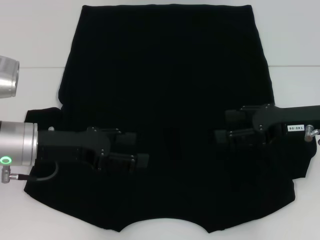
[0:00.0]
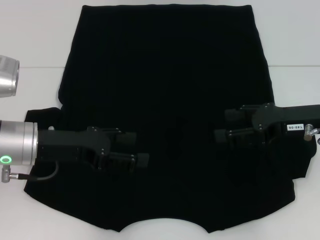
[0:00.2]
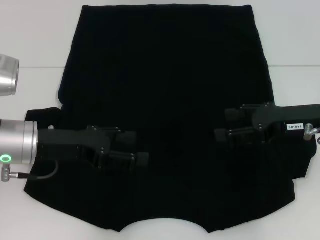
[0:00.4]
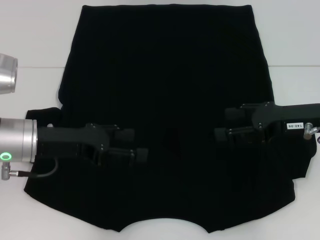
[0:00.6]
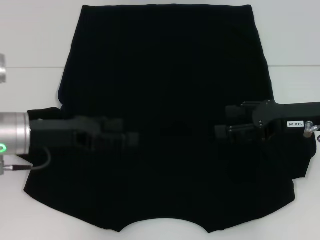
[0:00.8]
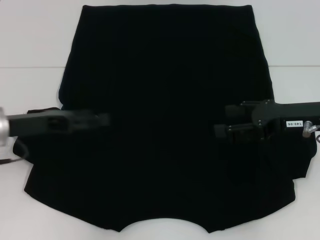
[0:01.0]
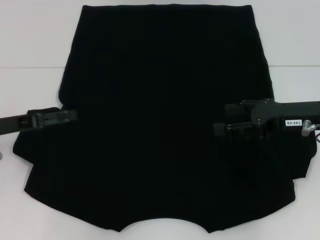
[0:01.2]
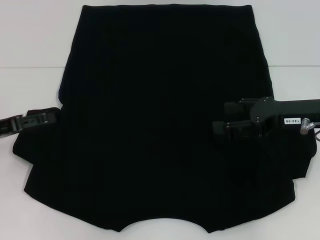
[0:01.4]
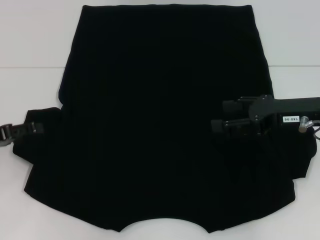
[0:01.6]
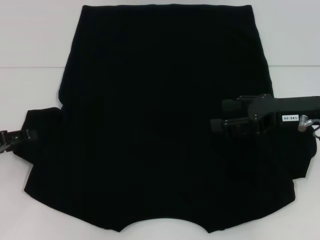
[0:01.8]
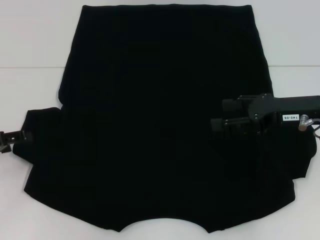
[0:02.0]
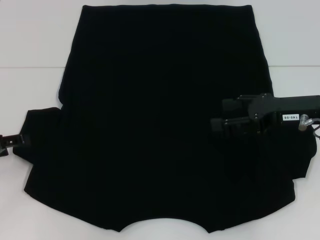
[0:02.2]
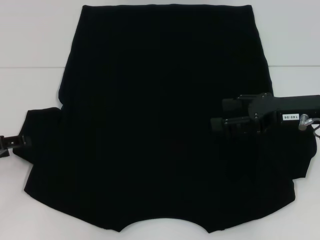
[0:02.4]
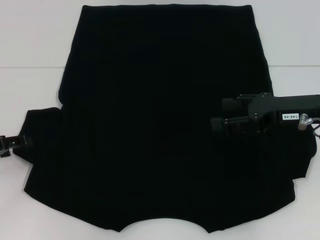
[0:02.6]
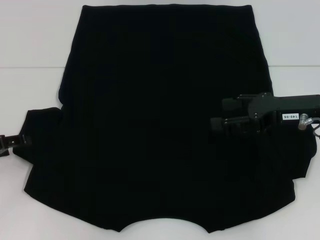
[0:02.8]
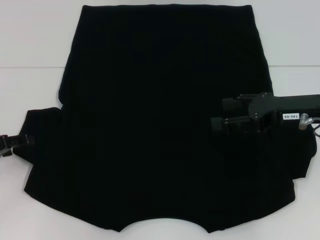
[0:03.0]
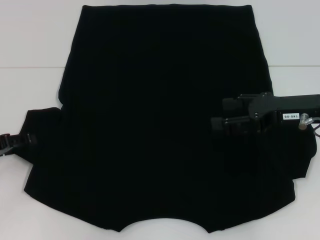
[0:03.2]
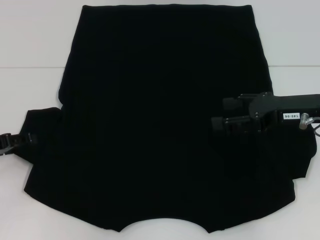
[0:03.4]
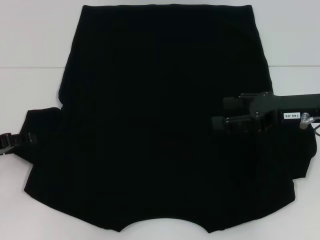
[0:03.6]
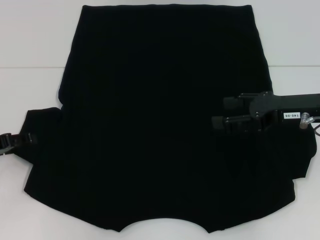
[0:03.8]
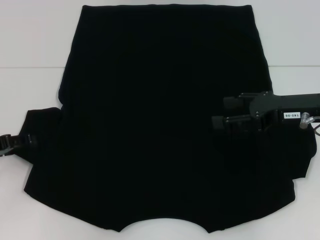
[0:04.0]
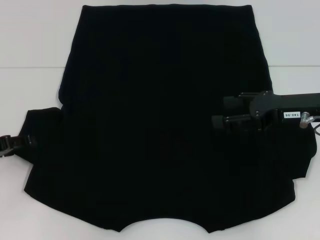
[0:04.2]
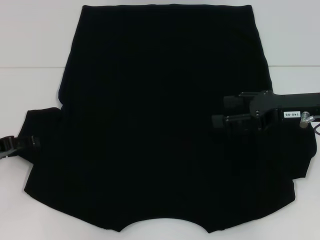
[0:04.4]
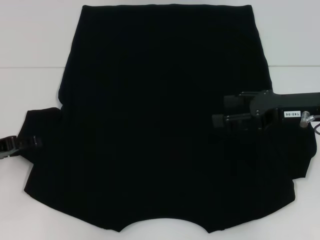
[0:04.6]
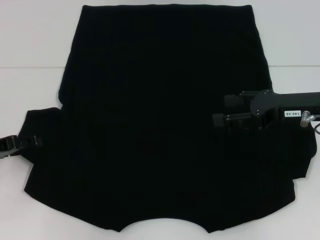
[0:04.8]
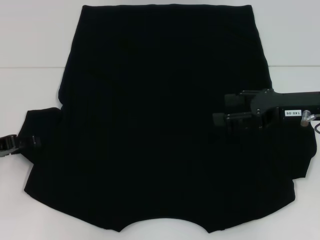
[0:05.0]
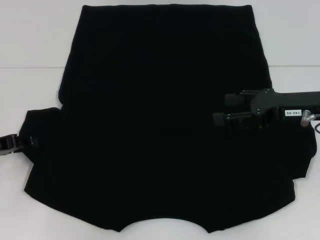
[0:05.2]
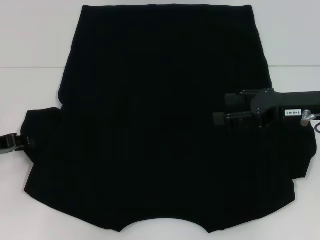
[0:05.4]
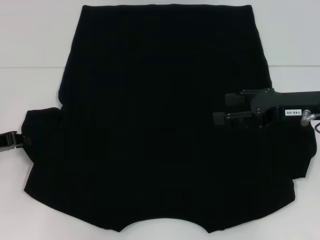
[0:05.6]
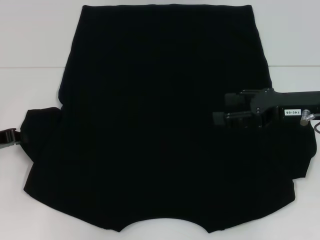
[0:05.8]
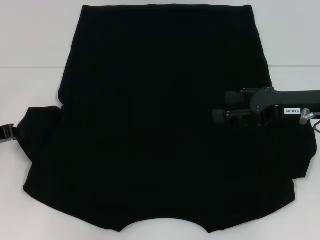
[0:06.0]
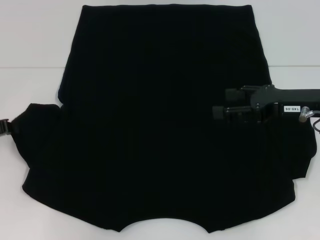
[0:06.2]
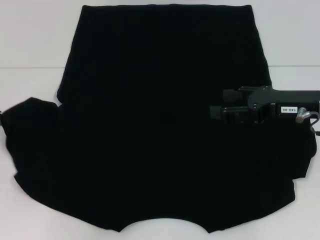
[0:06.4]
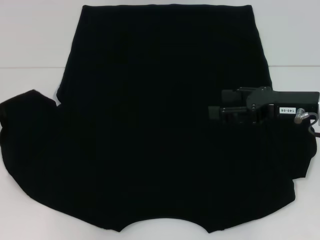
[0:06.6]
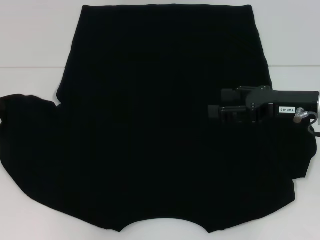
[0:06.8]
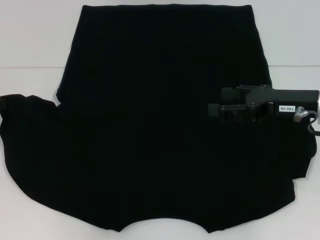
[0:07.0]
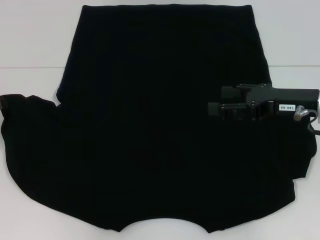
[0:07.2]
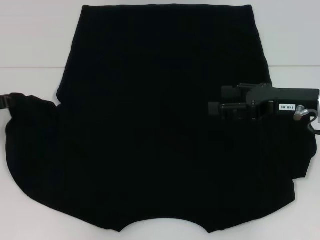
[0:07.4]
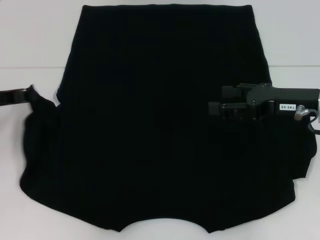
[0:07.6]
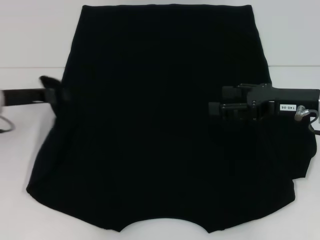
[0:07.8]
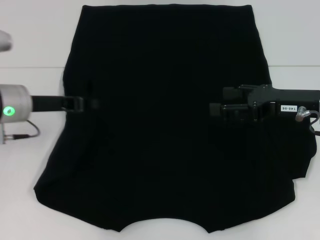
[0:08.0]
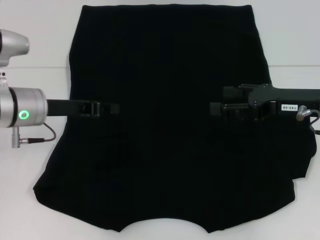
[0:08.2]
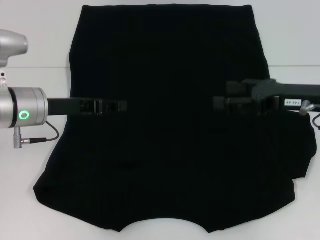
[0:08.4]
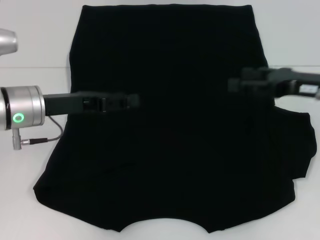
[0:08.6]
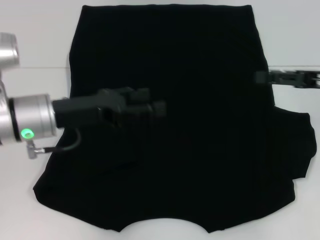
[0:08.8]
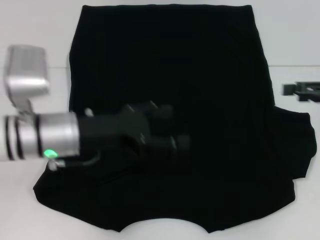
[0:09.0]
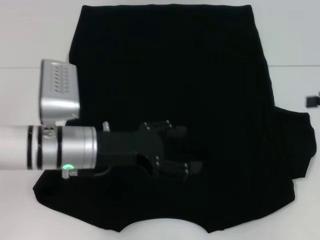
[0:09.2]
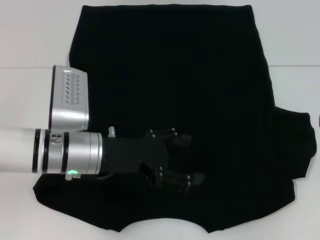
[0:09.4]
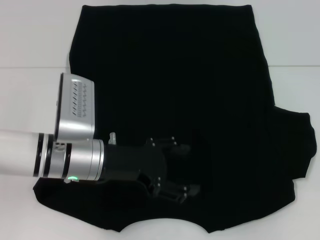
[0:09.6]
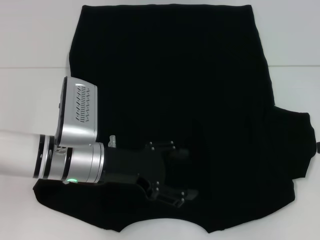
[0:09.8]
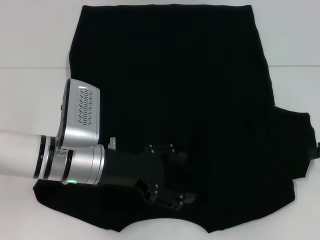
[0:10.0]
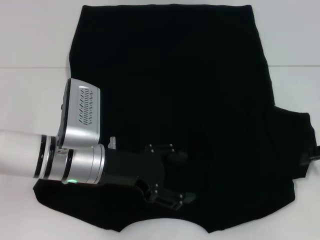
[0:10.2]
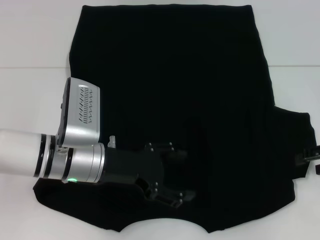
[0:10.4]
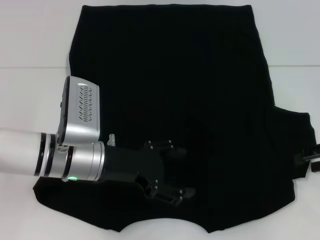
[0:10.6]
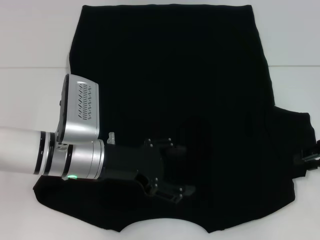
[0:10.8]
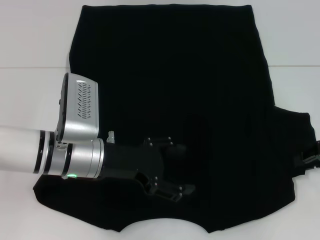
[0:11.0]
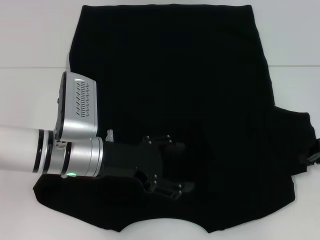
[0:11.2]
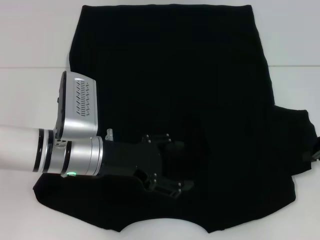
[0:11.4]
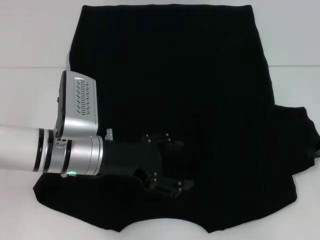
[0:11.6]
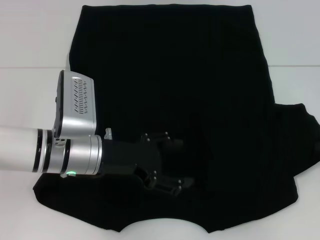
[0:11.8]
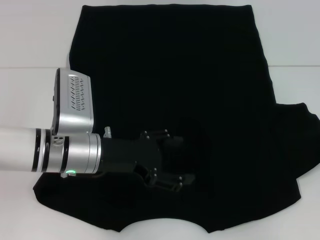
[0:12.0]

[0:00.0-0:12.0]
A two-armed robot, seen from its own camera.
Step, 0:00.0 to 0:08.4: Fold the bottom left sleeve with your left hand.
0:00.0 to 0:01.6: The left gripper is displaced to the left by approximately 10 cm.
0:01.6 to 0:03.0: The grippers stay close to where they were, moving slightly.
0:03.0 to 0:04.4: Both grippers stay about where they are.
0:04.4 to 0:06.0: The left gripper closes.
0:06.0 to 0:07.6: The left gripper moves about 5 cm.
0:07.6 to 0:09.0: The two grippers go roughly 15 cm to the right. The left gripper opens up.
0:09.0 to 0:10.4: The right gripper travels downward by roughly 5 cm.
0:10.4 to 0:12.0: The right gripper closes.

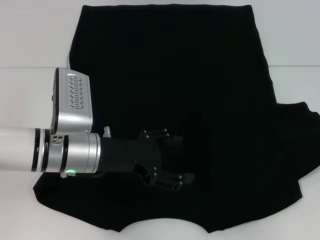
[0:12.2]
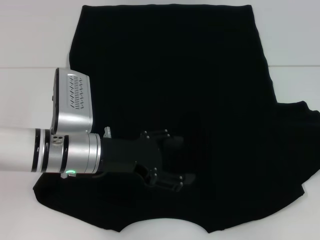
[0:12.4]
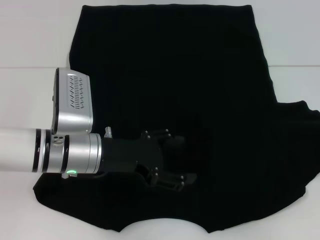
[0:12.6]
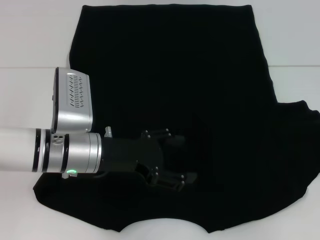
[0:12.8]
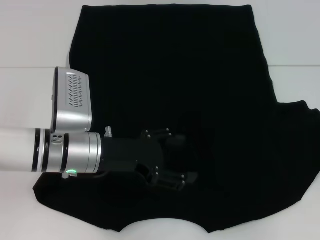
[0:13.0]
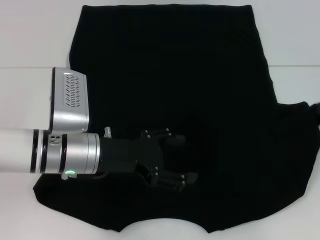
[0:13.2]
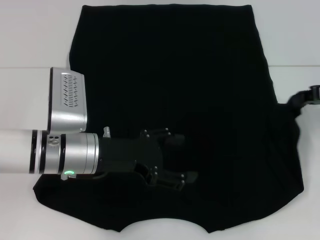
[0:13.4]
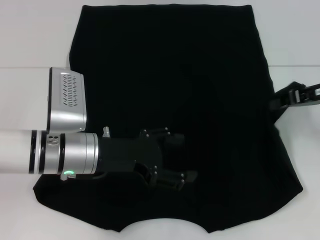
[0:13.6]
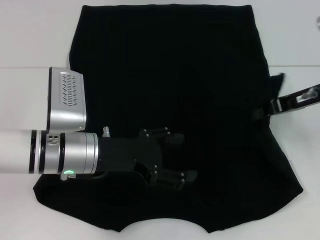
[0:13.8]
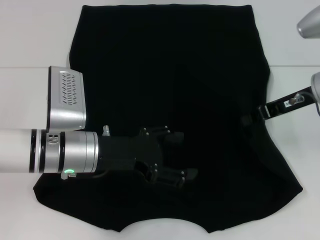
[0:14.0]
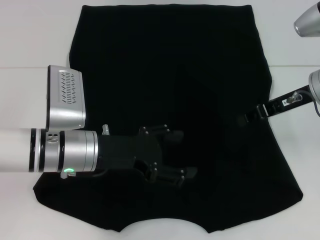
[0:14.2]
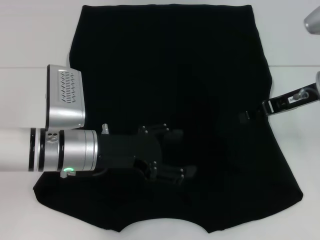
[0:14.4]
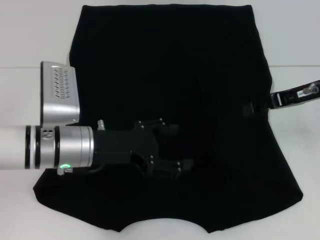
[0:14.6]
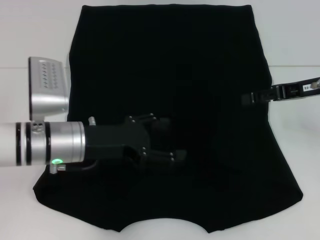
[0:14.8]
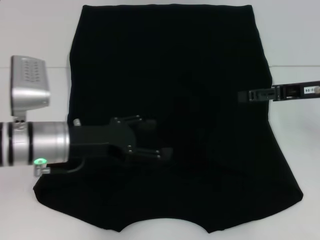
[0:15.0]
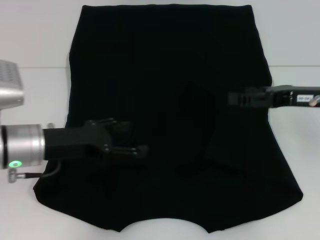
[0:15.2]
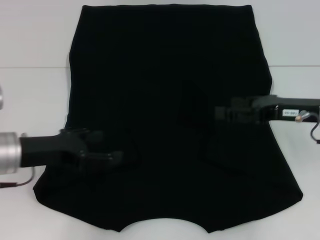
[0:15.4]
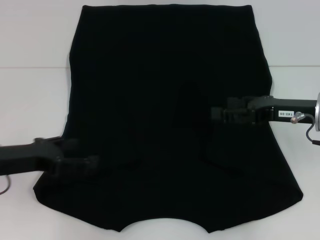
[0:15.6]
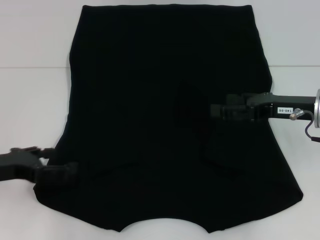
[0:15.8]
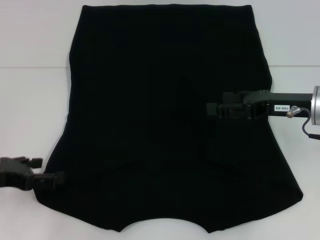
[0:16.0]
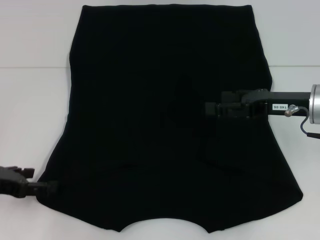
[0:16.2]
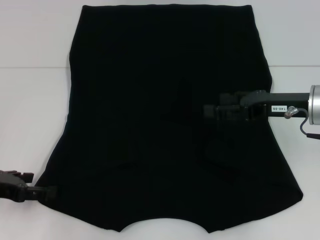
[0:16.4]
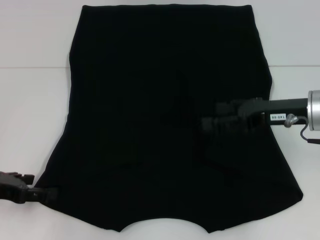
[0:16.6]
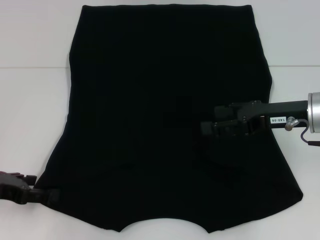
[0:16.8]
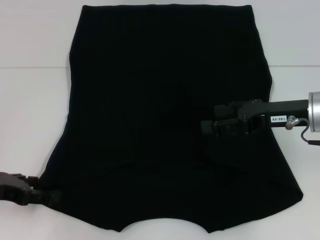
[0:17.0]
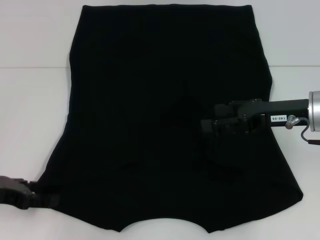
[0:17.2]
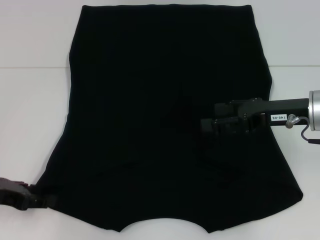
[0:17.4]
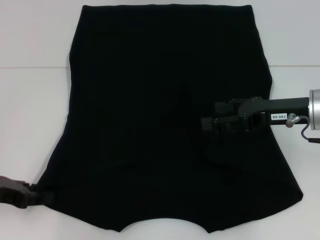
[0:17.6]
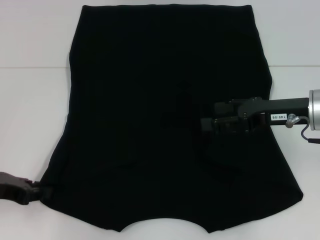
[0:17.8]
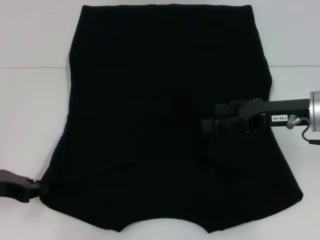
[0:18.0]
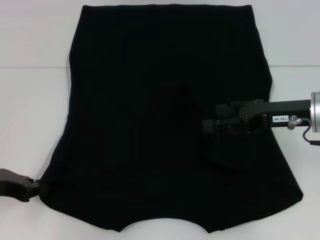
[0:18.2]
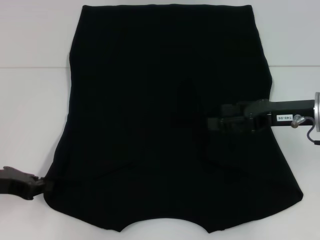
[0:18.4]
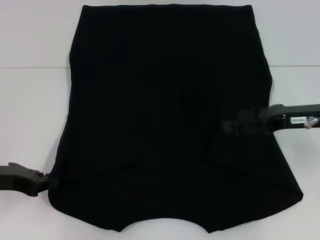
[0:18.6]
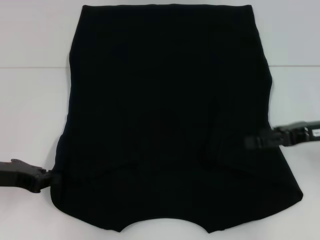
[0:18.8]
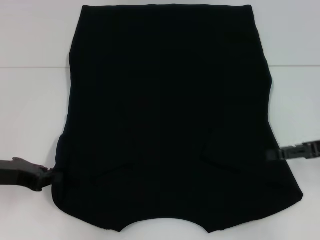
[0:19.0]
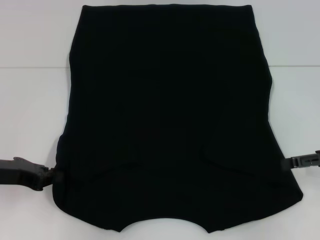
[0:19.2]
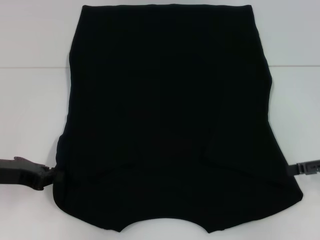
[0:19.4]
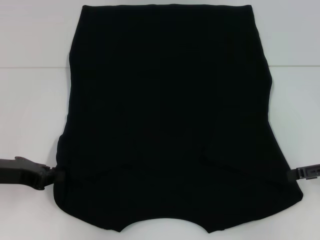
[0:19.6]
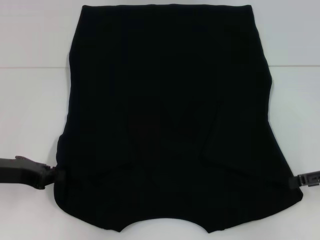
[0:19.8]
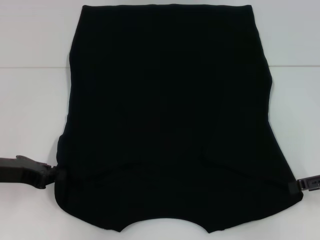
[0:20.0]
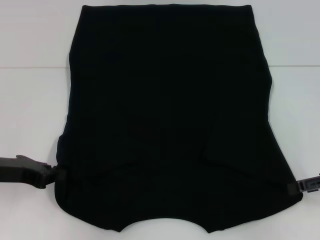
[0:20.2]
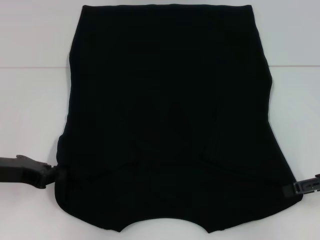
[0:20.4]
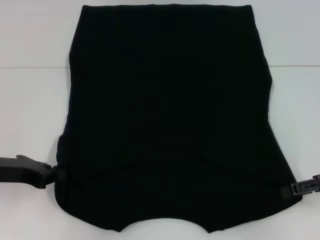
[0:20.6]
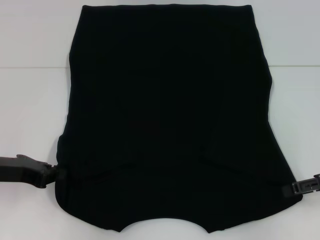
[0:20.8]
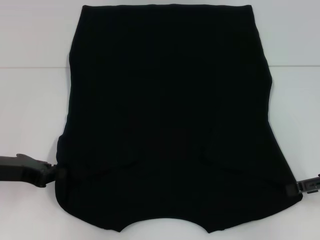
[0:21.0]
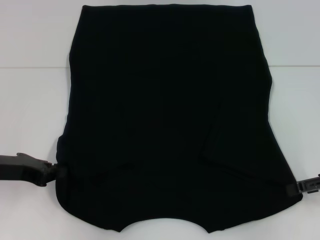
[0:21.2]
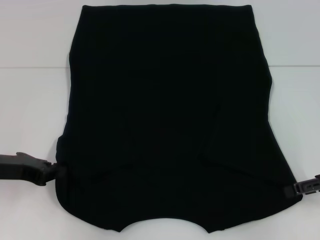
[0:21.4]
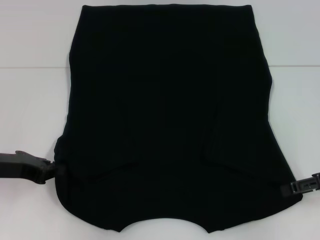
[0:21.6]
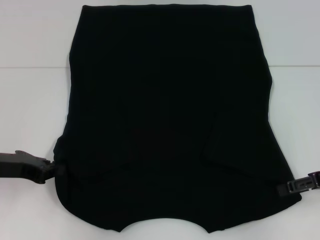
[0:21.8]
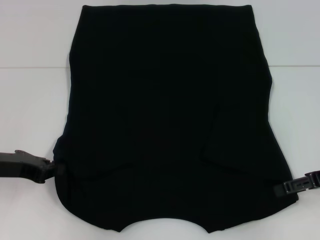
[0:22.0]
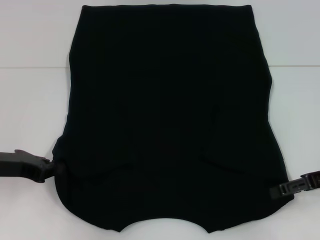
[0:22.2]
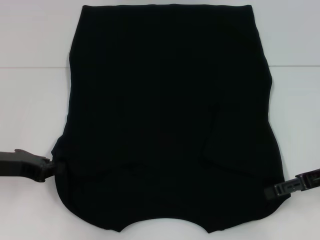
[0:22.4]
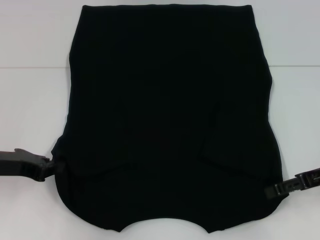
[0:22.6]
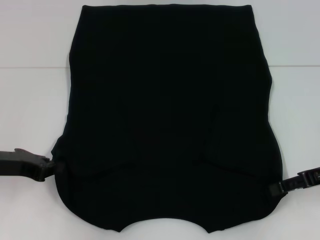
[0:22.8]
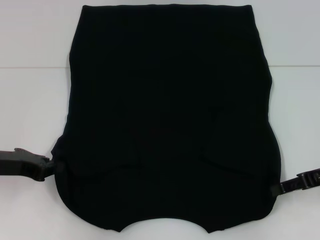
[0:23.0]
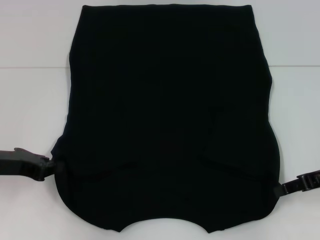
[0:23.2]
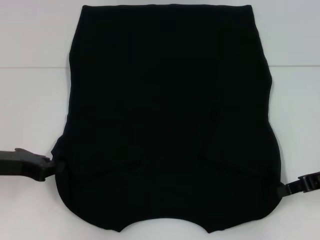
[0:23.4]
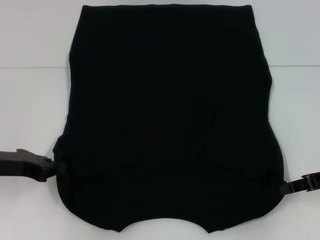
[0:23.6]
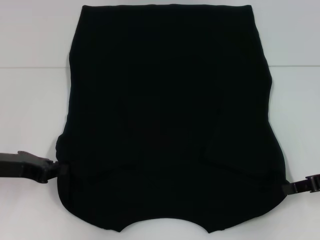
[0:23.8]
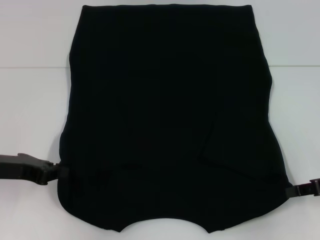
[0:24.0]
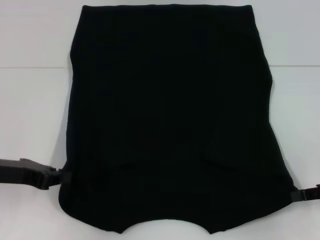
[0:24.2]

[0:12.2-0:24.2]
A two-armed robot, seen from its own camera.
Step, 0:12.2 to 0:14.4: Fold the bottom right sleeve with your right hand.
Step, 0:14.6 to 0:18.2: Grab the bottom left corner with your left hand.
Step, 0:18.4 to 0:23.8: Grab the bottom right corner with your right hand.
0:12.2 to 0:13.8: The right gripper goes about 10 cm to the left.
0:13.8 to 0:15.2: The right gripper opens, while the left gripper travels to the left by roughly 5 cm.
0:15.2 to 0:16.6: The left gripper travels to the left by roughly 10 cm.
0:16.6 to 0:18.2: The left gripper closes.
0:18.2 to 0:19.8: The right gripper is displaced to the right by approximately 10 cm.
0:19.8 to 0:22.6: The grippers stay close to where they were, moving slightly.
0:22.6 to 0:24.2: The right gripper shifts by about 5 cm, and closes.
